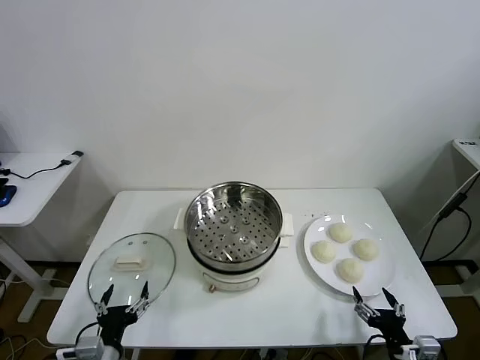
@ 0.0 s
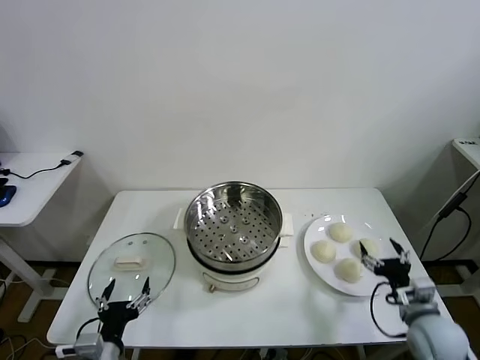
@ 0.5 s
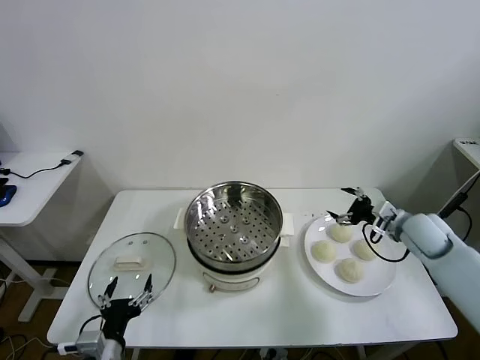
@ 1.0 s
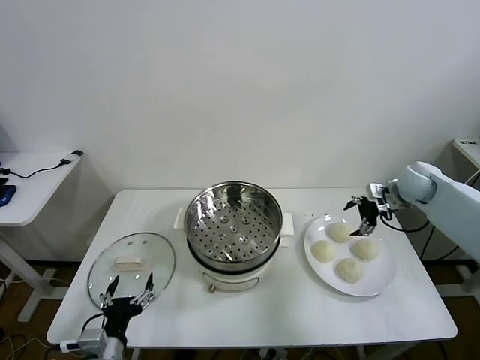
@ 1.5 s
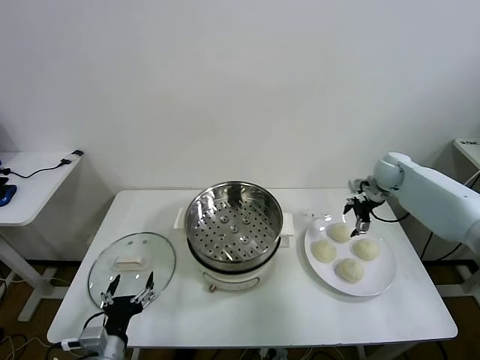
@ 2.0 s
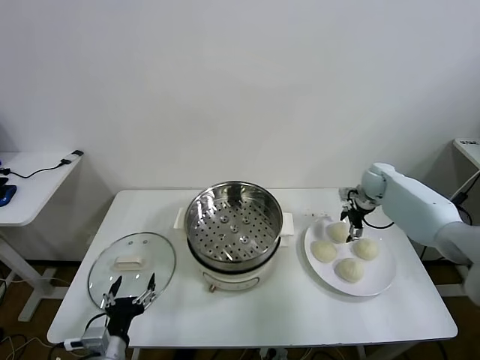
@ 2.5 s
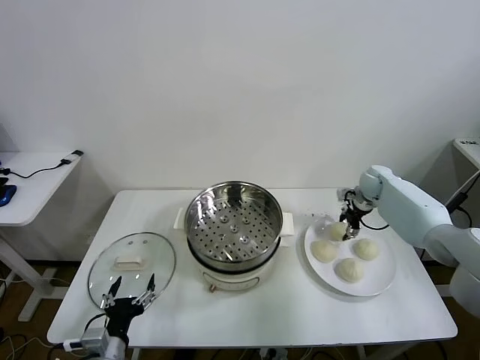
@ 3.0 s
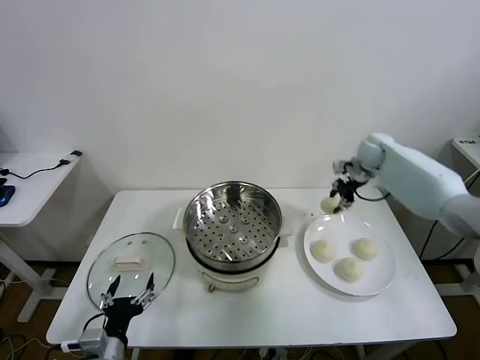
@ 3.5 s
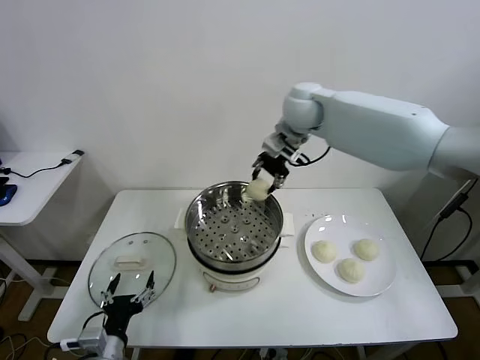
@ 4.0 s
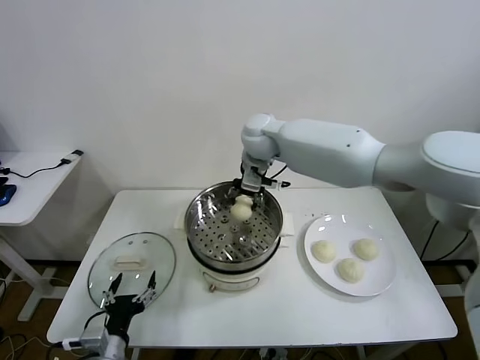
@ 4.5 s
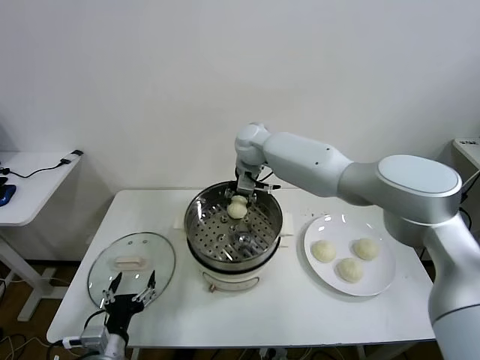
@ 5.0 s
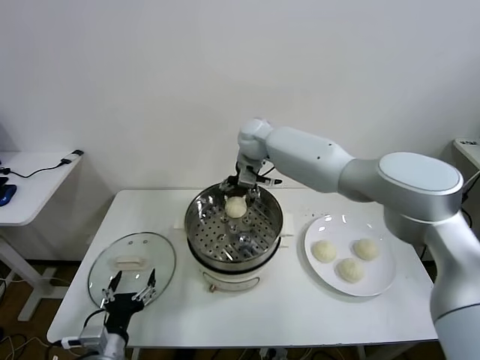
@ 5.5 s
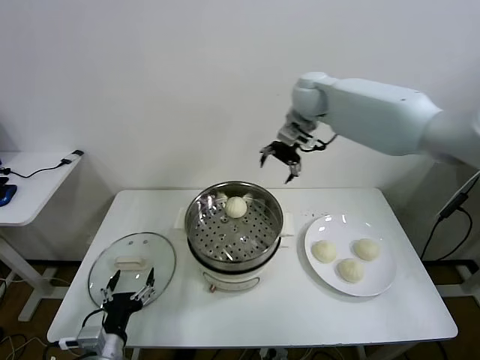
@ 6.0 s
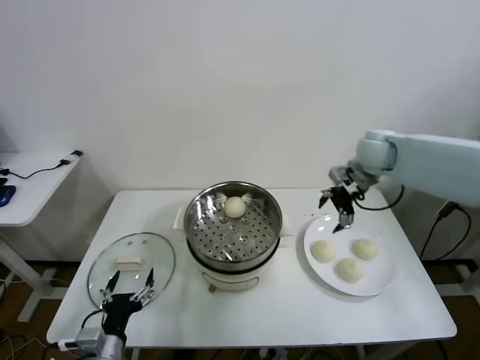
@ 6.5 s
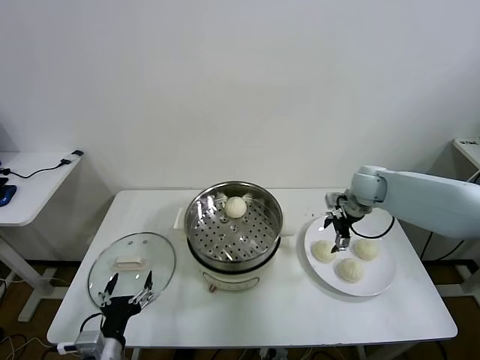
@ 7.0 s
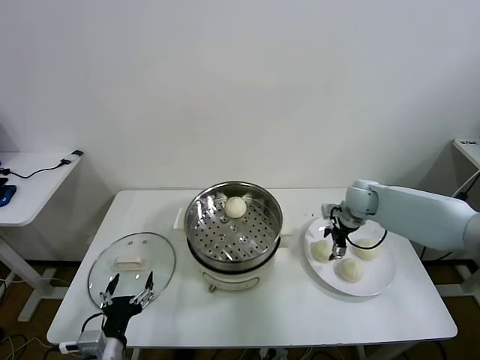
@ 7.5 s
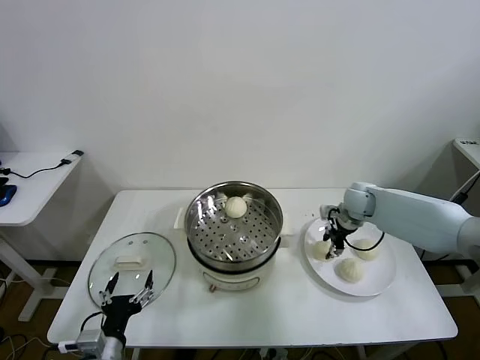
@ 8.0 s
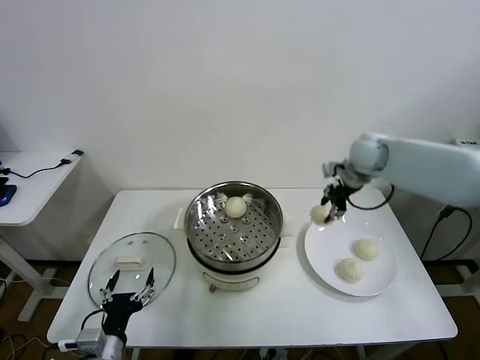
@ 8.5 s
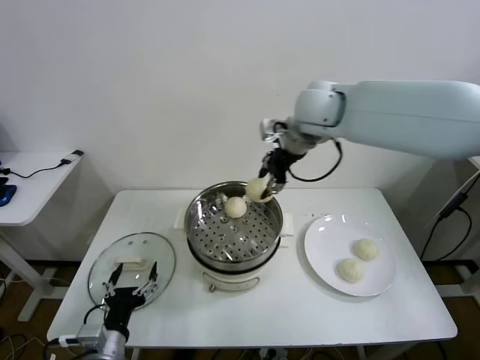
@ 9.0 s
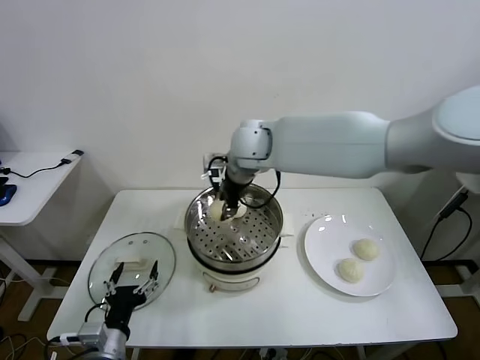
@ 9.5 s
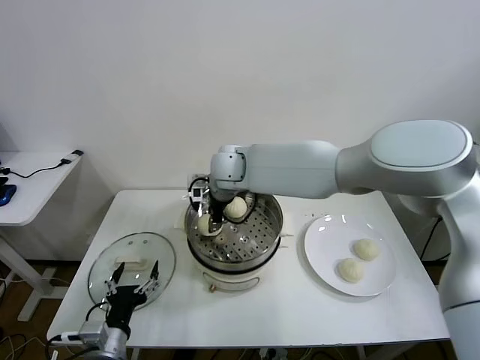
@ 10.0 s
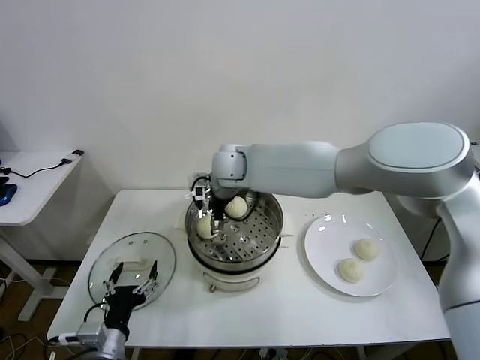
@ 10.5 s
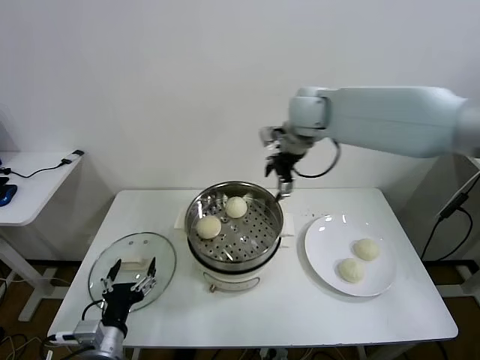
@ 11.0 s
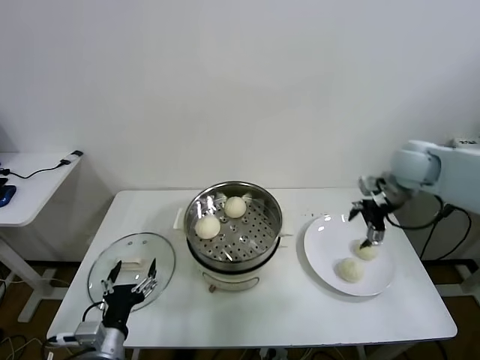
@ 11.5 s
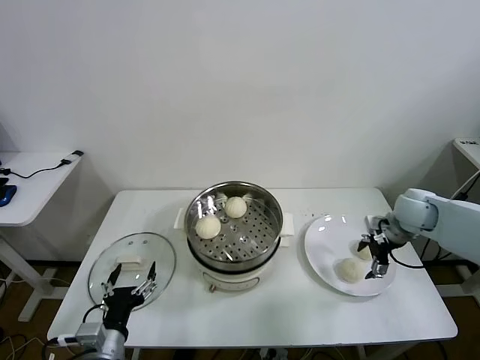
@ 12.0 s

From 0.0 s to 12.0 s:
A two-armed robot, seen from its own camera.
Task of the whole recording: take steamed baozi put them in steamer then cover it.
Step, from 0.0 s to 3.0 s: Grasp the baozi in the plate with right gripper.
Step, from 3.5 s to 5.0 s: Place the baozi on the steamer with right gripper.
Step, from 5.5 s to 8.0 s: Grasp the baozi in the plate with right gripper.
Step, from 8.5 s to 10.0 s: Place the baozi on the steamer with right gripper.
From 2.0 s to 4.0 s: The right gripper goes roughly 35 cm to the left and upward, and closes its fingers.
From 4.0 s to 6.0 s: The right gripper moves to the right, some 10 cm, and opens.
From 6.0 s to 8.0 s: The right gripper shifts about 30 cm downward and to the right, and closes.
From 8.0 s to 10.0 s: The right gripper heads to the left, covering some 35 cm.
From 10.0 s to 12.0 s: The right gripper is displaced to the right by about 40 cm, and opens up.

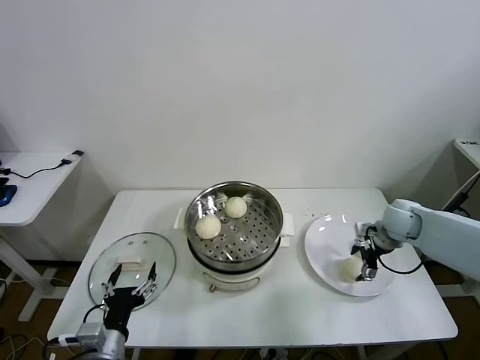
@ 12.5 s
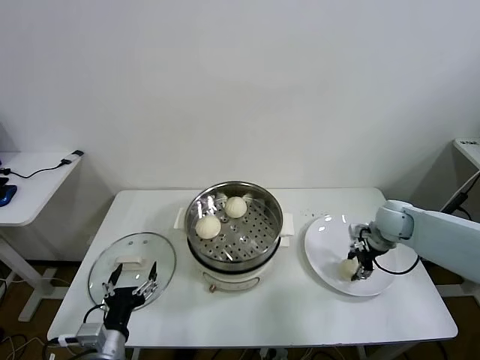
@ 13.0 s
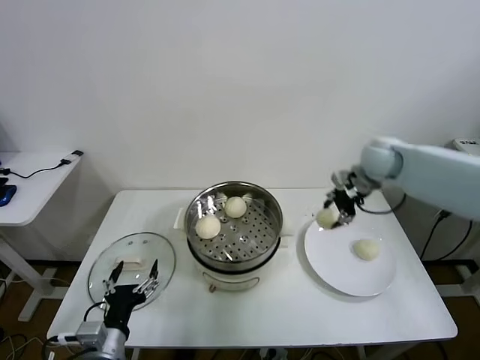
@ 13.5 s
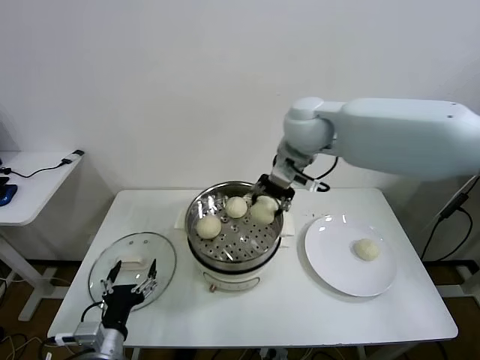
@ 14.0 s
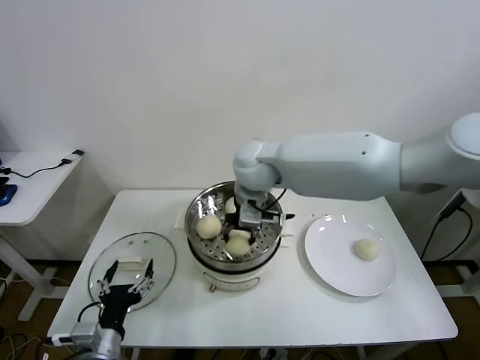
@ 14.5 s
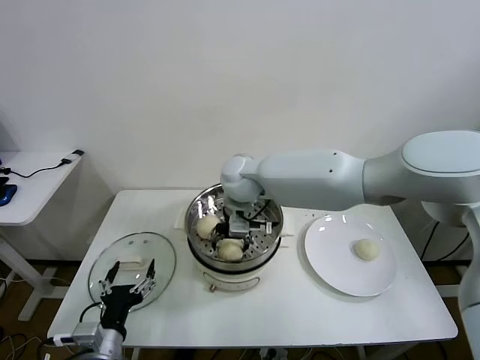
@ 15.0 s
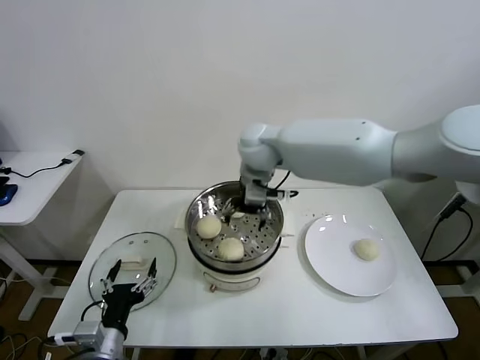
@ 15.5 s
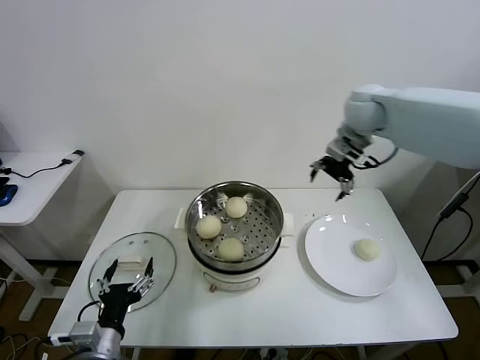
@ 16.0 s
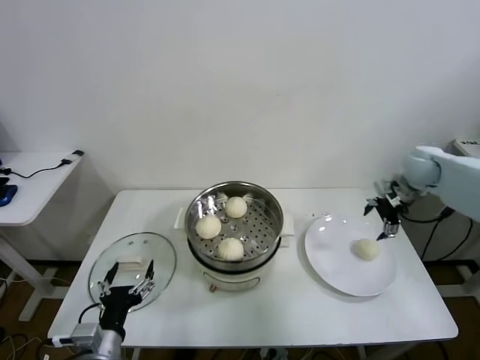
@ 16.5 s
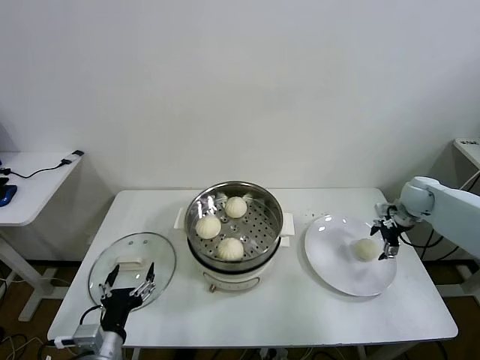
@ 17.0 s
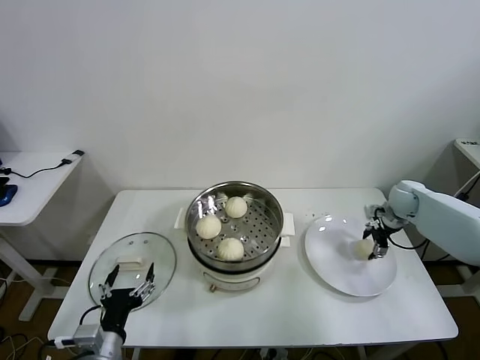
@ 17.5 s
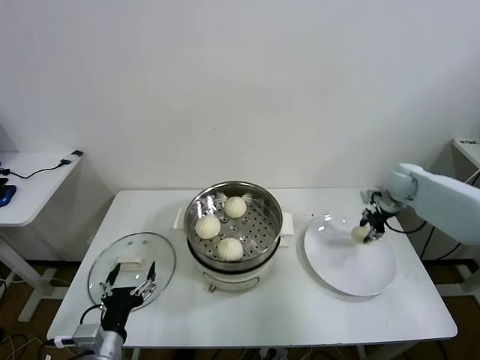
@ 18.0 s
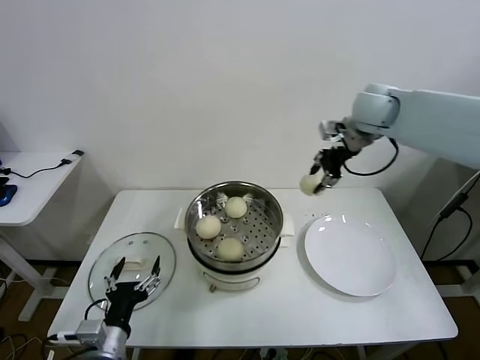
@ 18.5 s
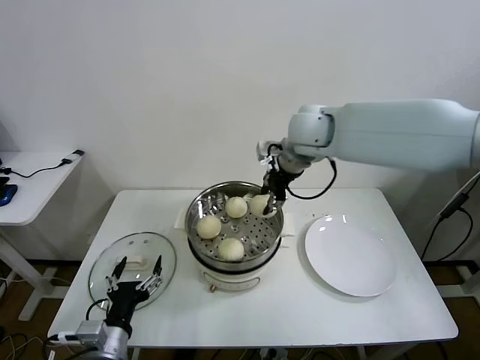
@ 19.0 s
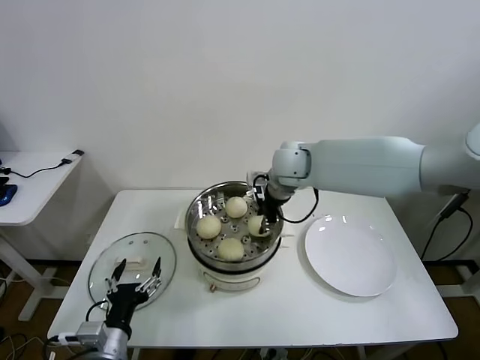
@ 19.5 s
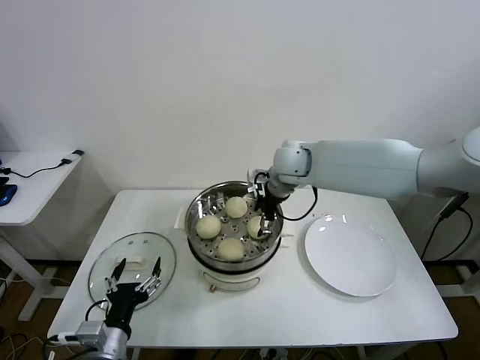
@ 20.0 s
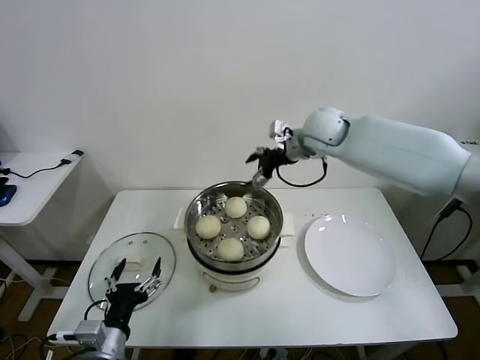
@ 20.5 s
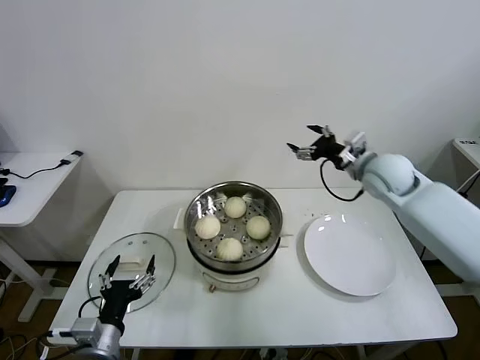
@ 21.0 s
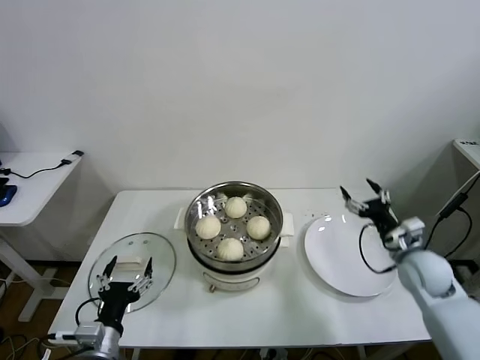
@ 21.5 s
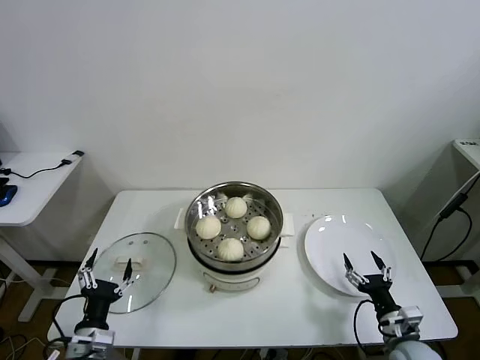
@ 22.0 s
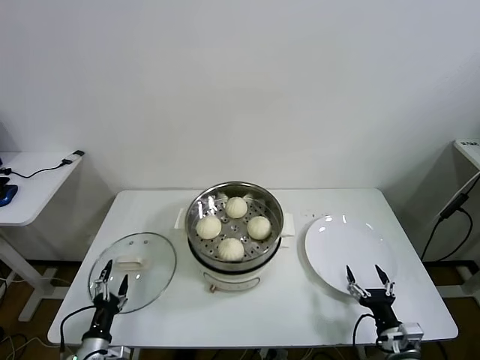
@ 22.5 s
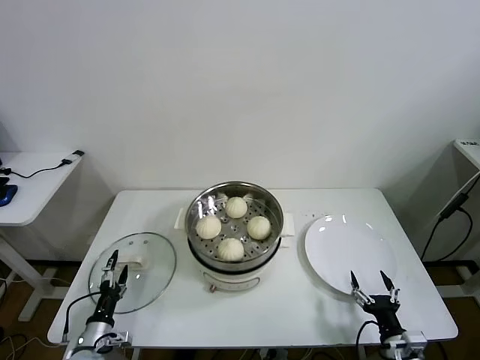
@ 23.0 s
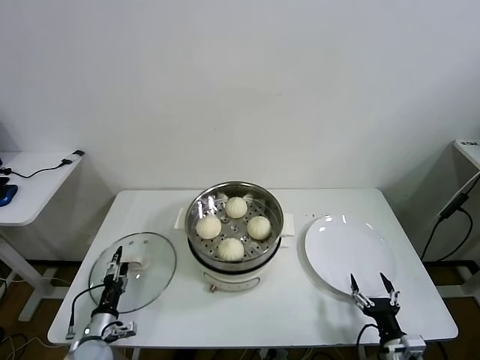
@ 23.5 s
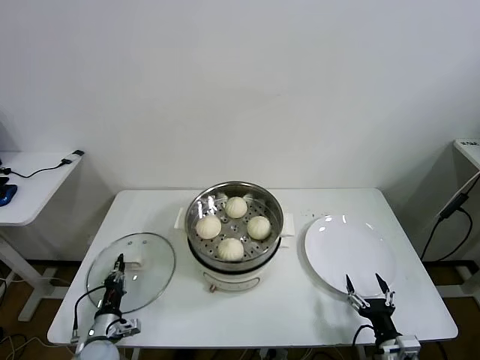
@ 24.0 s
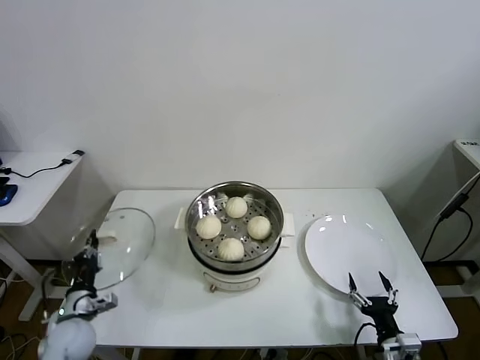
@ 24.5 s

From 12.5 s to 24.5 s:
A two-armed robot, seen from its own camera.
Task of the whole recording: take steamed baozi put them in steamer then cover it.
Step, from 13.0 s to 15.0 s: Place the baozi on the steamer with right gripper.
Step, from 15.5 s to 17.5 s: Grasp the baozi in the plate with right gripper.
Step, from 18.0 s to 19.5 s: Place the baozi on the steamer with right gripper.
Step, from 20.0 s to 23.5 s: Grasp the pot lid with left gripper.
From 12.5 s to 14.5 s: The right gripper shifts some 40 cm to the left and upward, and closes up.
From 14.5 s to 16.5 s: The right gripper heads to the right, covering some 40 cm, and opens its fingers.
From 16.5 s to 18.5 s: The right gripper moves to the left and upward, some 20 cm, and closes up.
From 18.5 s to 20.5 s: The right gripper goes about 10 cm to the left and downward, and opens up.
From 20.5 s to 22.5 s: The left gripper heads downward and to the left, covering some 20 cm. Meanwhile the right gripper travels backward, downward and to the right by some 60 cm.
From 22.5 s to 24.5 s: The left gripper goes roughly 10 cm forward, and closes up.

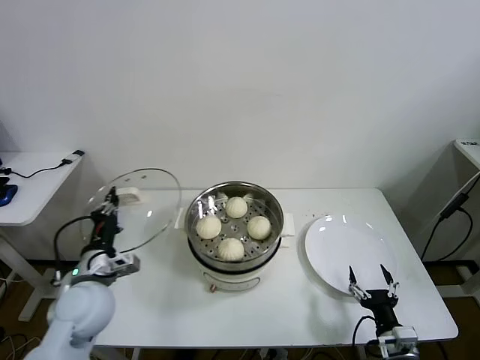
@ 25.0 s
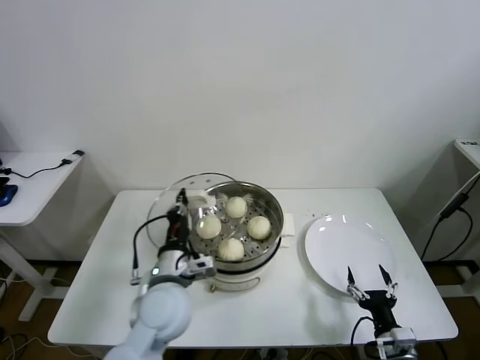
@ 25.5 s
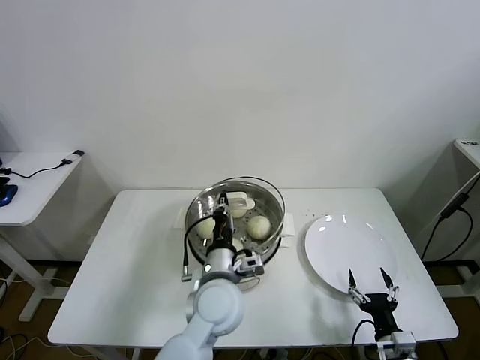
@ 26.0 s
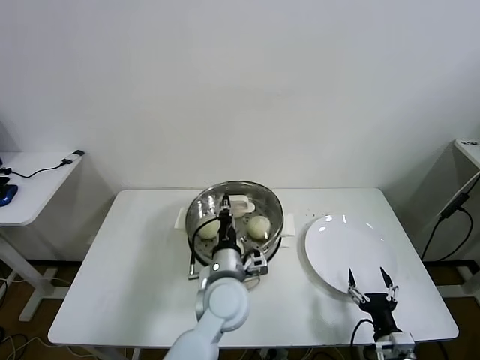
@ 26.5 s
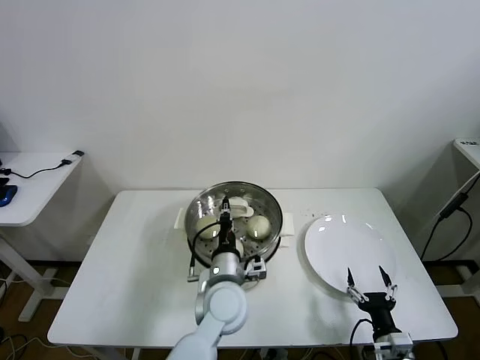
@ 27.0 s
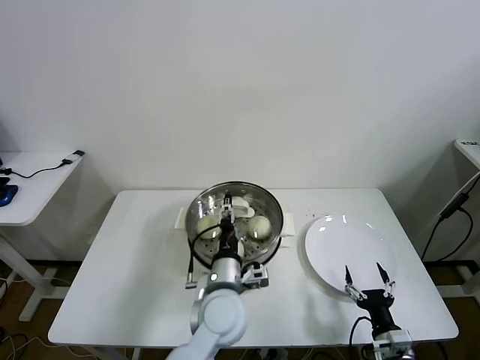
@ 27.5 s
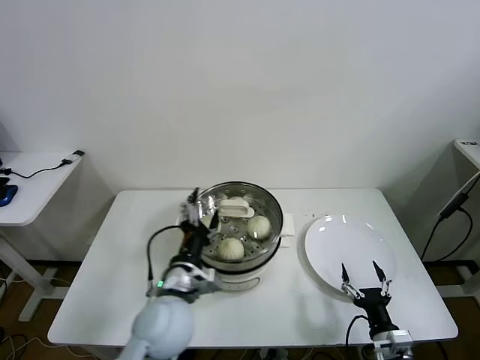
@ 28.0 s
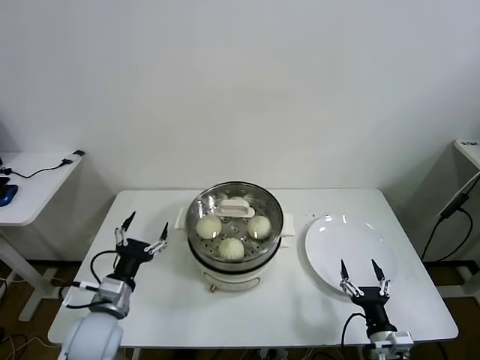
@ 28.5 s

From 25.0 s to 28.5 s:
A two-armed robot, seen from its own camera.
Task of the whole recording: take steamed baozi put them in steamer then cover it.
Step, from 25.0 s to 27.0 s: Place the pot lid on the steamer with left gripper.
From 25.0 s to 27.0 s: The left gripper goes about 30 cm to the right.
From 27.0 s to 28.5 s: The left gripper shifts about 25 cm to the left, and opens.
